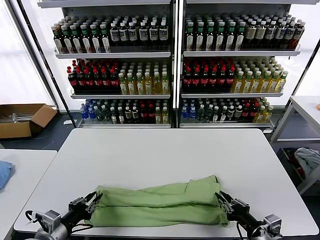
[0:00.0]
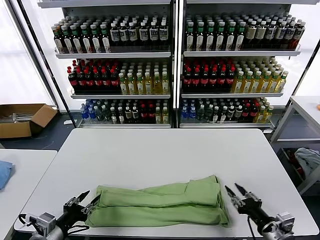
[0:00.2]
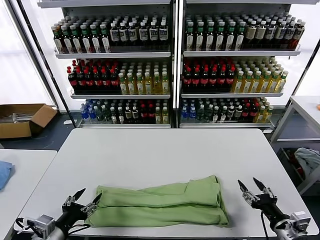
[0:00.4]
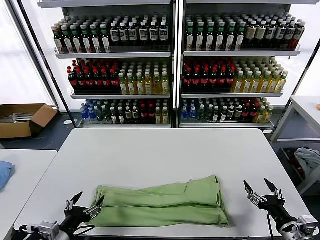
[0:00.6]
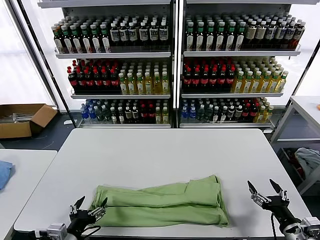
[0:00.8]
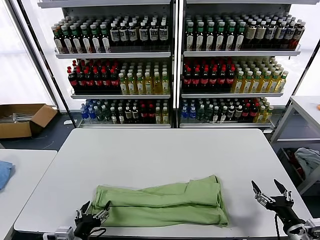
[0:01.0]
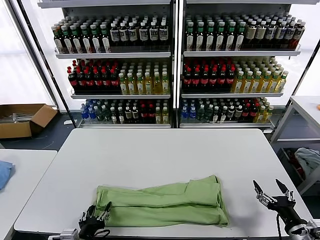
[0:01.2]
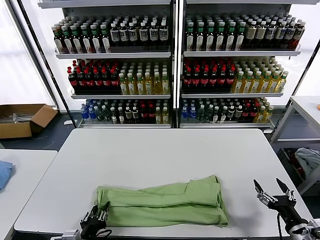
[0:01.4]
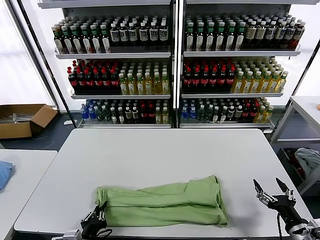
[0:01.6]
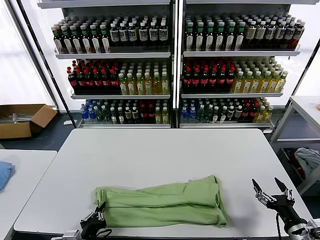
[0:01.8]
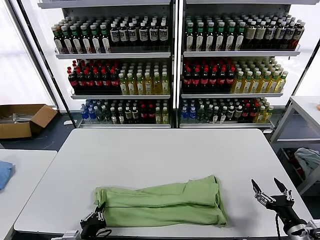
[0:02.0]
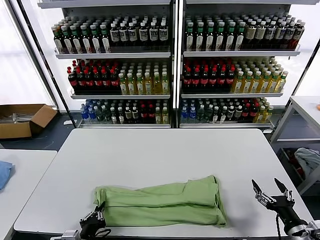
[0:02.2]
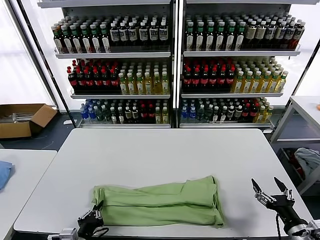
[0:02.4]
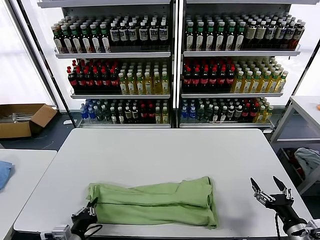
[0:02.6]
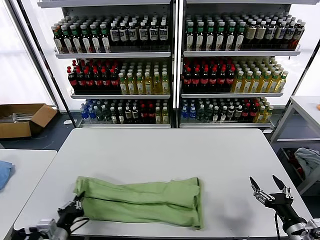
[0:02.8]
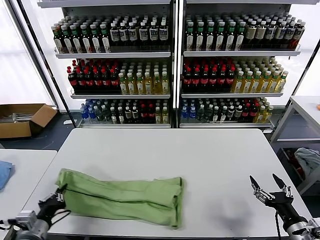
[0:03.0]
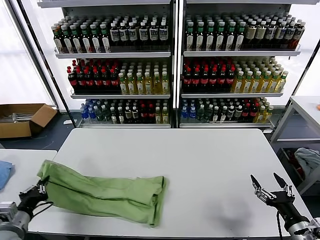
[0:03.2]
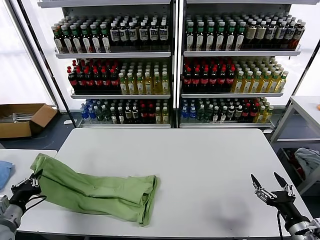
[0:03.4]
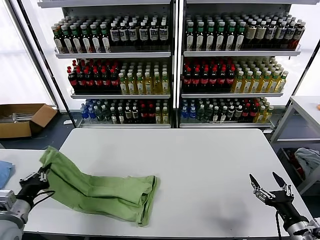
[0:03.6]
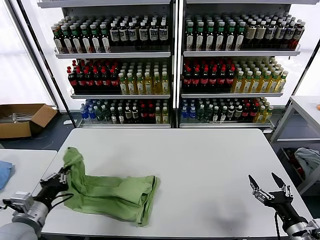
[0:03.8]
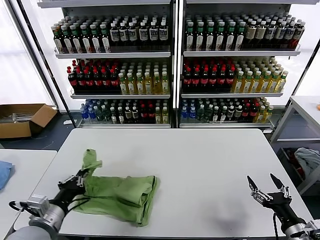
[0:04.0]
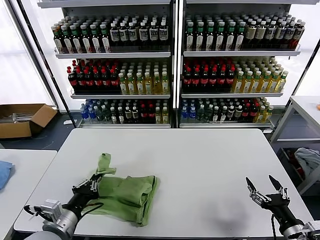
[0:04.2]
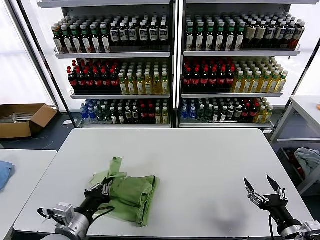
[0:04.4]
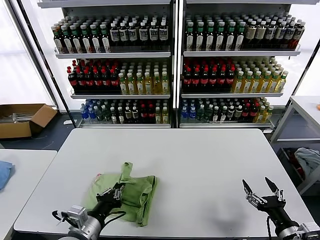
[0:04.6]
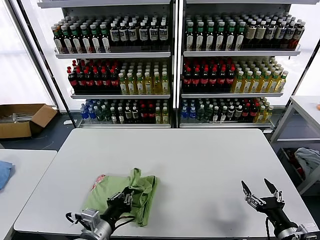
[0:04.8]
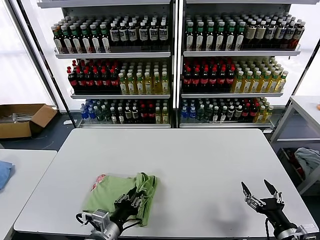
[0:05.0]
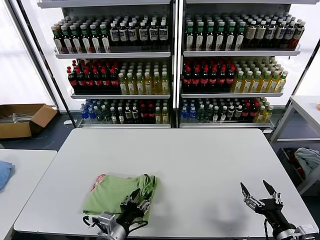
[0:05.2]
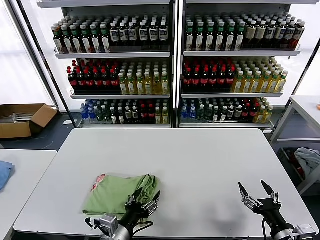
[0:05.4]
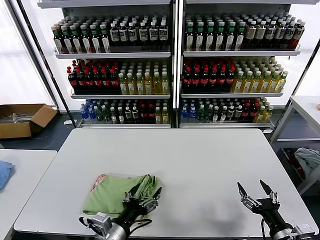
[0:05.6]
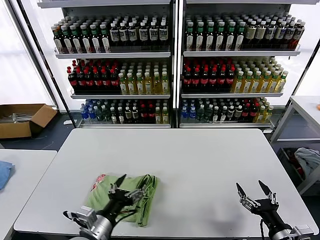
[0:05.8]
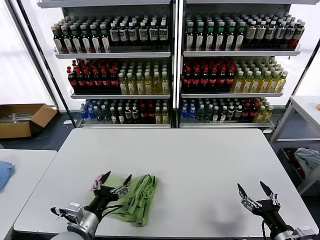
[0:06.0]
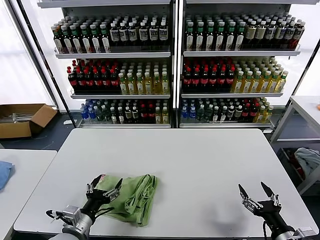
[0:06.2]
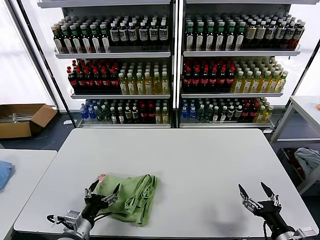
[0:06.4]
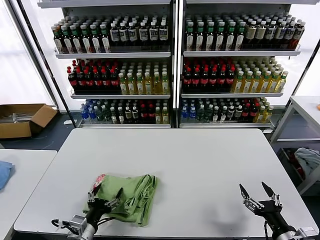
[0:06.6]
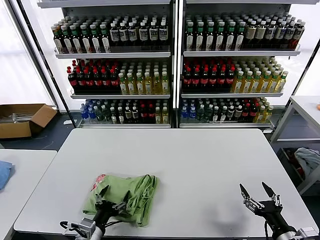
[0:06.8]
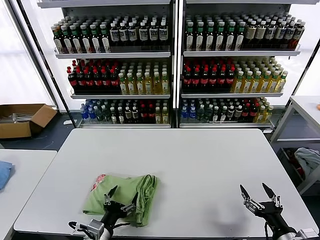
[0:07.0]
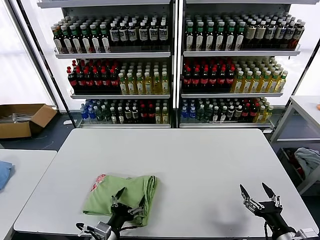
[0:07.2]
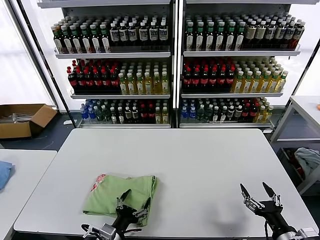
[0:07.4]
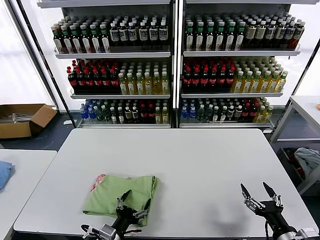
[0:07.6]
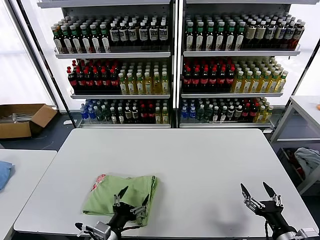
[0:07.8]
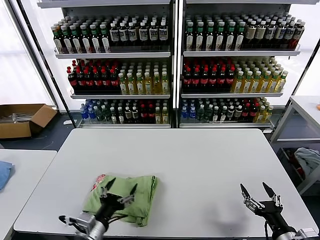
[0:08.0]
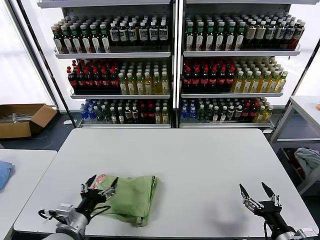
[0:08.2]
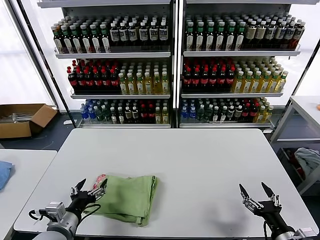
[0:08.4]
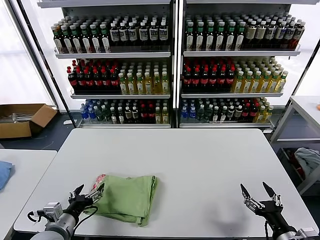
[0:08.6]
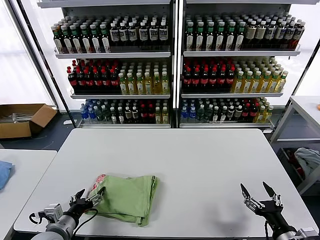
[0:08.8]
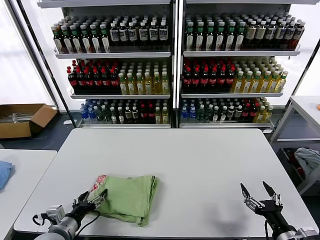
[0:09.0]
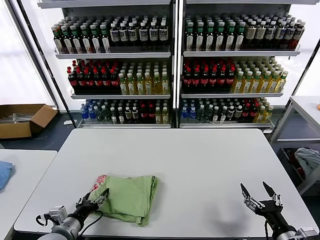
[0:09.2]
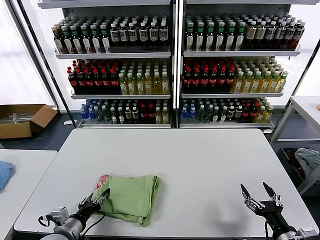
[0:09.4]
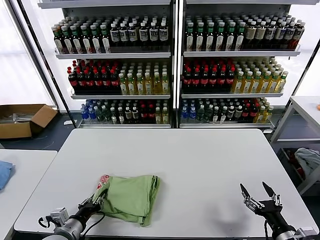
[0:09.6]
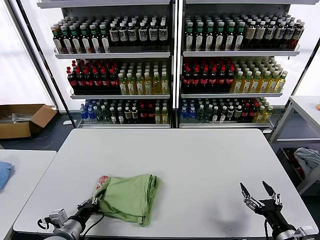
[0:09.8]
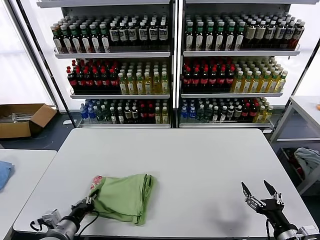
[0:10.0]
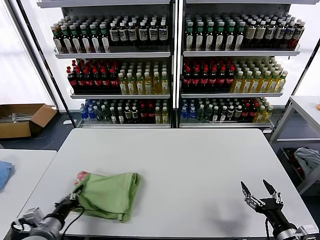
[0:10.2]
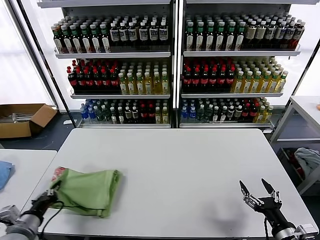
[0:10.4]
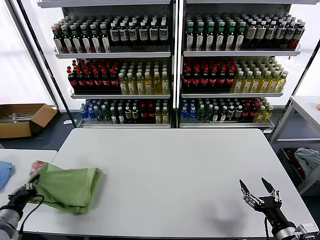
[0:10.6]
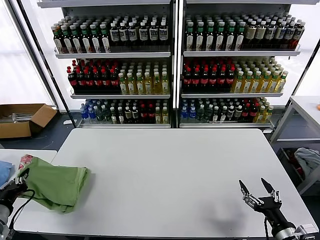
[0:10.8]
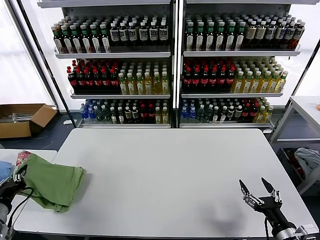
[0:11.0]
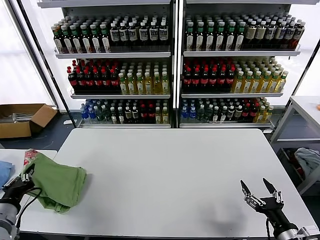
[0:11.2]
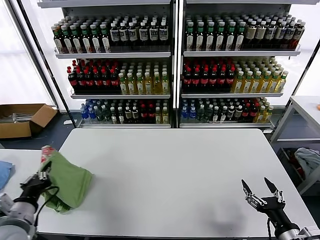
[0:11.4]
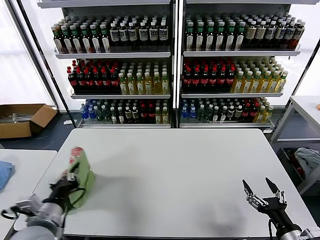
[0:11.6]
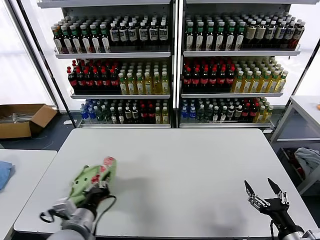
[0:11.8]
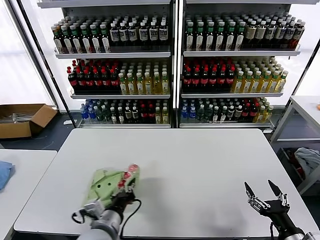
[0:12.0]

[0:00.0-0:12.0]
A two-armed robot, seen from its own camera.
Task of the whole recording: fold and organize the clothes.
Step, 0:00.2 to 0:01.8: use the left gripper to clamp the left edge of the fabric.
Step, 0:02.0 to 0:05.4: use the left gripper to drag the left edge of the fabric to the left and folds it over the right edge.
0:00.0 to 0:01.6: The right gripper travels to the right by roughly 10 cm, and opens its fingers, while the left gripper travels to the right and downward by roughly 10 cm, and opens, then closes once more.
0:01.6 to 0:03.0: The left gripper moves to the left, roughly 10 cm.
0:03.0 to 0:04.4: The left gripper travels to the right and upward by roughly 10 cm.
0:04.4 to 0:06.0: The left gripper opens its fingers.
0:06.0 to 0:07.6: The left gripper heads downward, covering some 10 cm.
0:07.6 to 0:09.0: The left gripper is displaced to the left by approximately 15 cm.
0:09.0 to 0:10.4: The left gripper shifts some 5 cm to the left, and closes up.
0:10.4 to 0:12.0: The left gripper goes some 20 cm to the right.

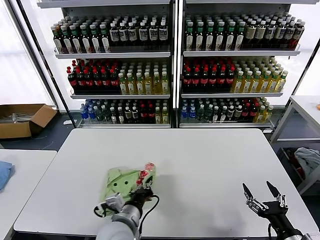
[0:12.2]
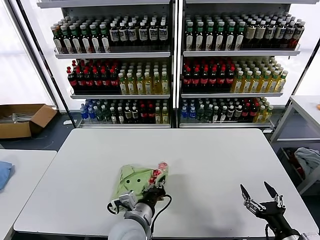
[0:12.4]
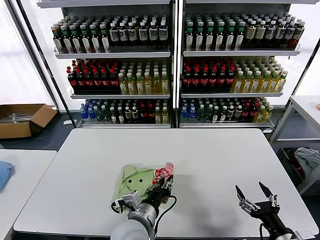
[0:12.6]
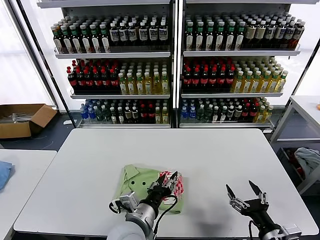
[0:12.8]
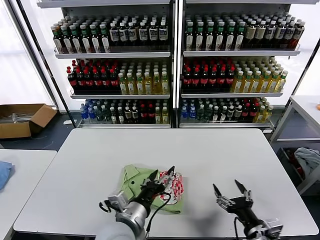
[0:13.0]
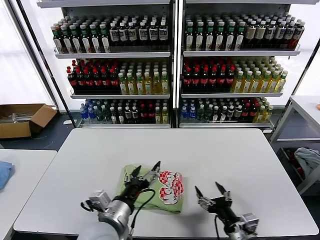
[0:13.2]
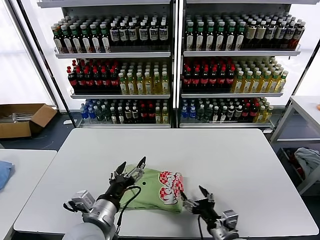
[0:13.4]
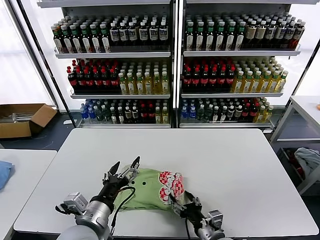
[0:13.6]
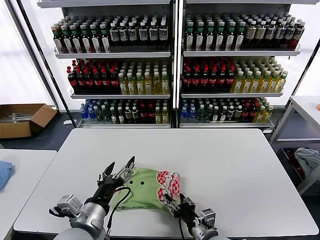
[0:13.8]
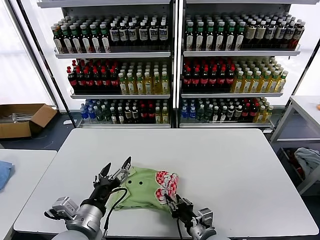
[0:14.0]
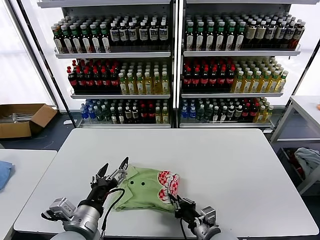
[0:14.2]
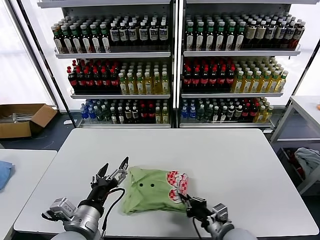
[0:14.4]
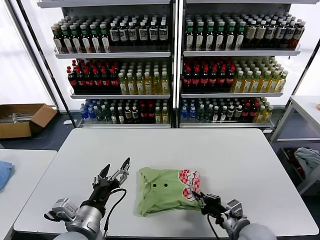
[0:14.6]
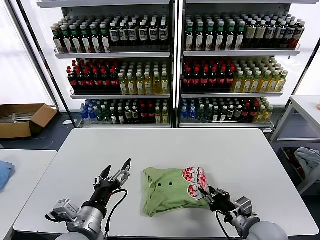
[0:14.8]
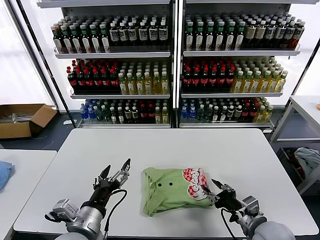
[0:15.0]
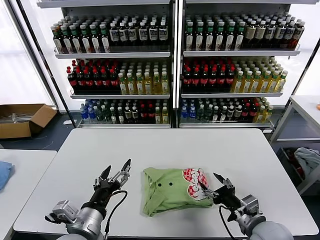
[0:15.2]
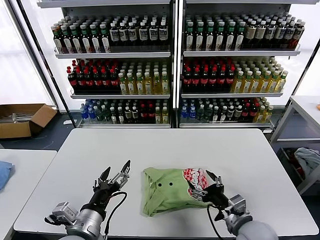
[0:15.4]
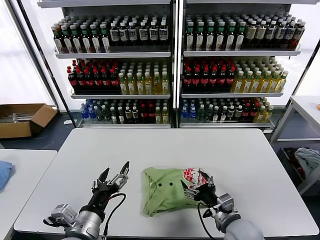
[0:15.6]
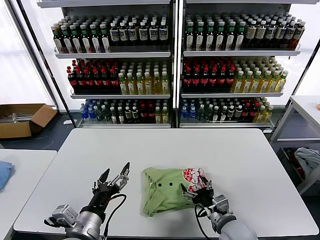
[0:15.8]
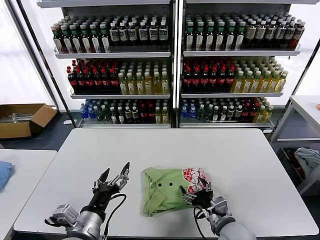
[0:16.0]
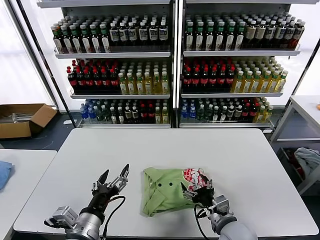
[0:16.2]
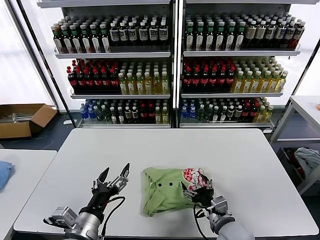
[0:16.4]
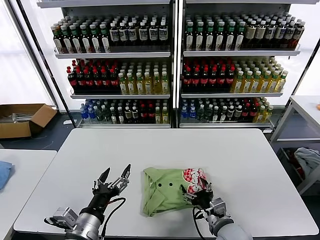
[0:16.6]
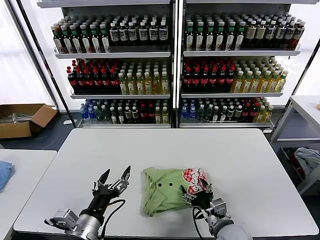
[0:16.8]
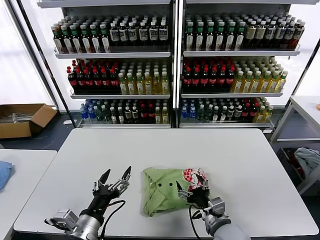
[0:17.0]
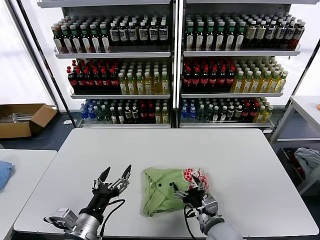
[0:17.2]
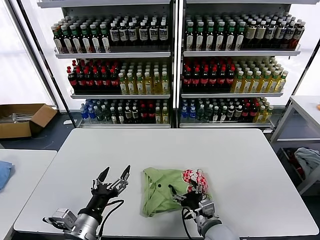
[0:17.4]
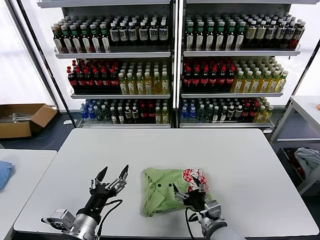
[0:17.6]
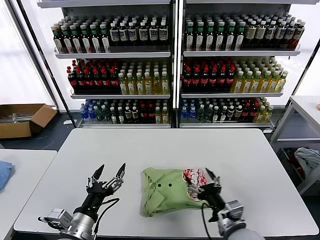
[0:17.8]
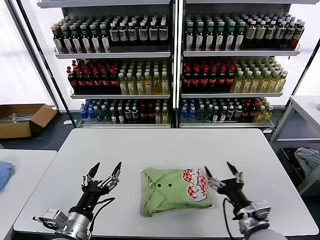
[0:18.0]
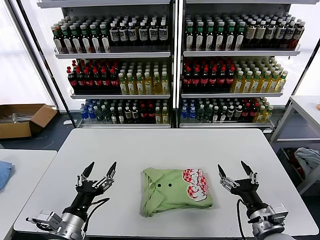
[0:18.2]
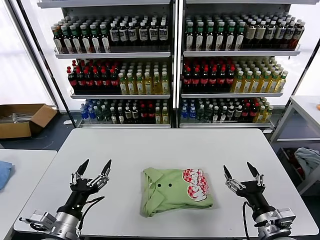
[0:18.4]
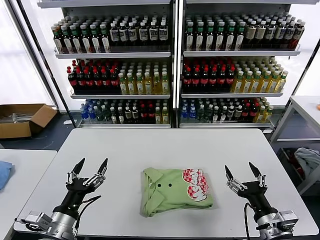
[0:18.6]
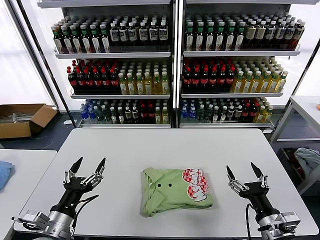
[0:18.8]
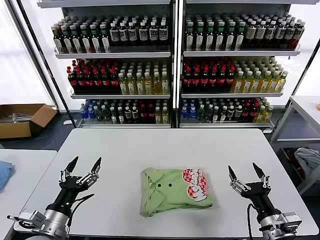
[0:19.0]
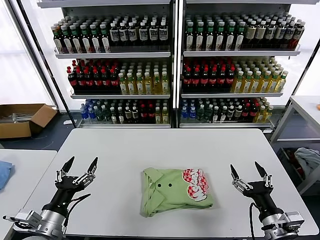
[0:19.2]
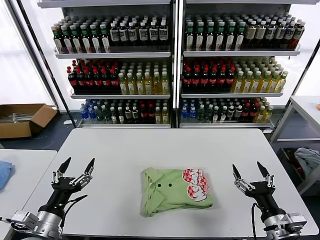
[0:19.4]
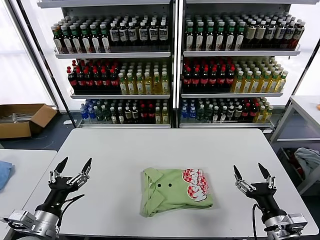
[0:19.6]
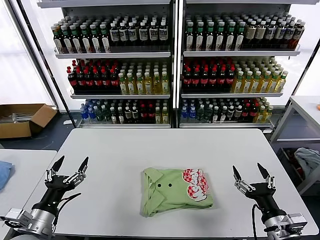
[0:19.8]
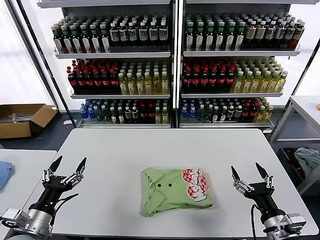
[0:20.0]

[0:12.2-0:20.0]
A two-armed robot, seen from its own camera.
Task of the whole recording: fold and organize the clothes.
Step, 0:13.0 to 0:17.6: Drag the clothes to the center of the table.
0:12.2 to 0:13.8: The right gripper heads to the left and forward, covering about 20 cm. Meanwhile the left gripper is displaced upward and to the left by some 10 cm, and opens.
0:13.8 to 0:15.4: The right gripper heads to the right and upward, covering some 10 cm, and closes, then reopens.
0:15.4 to 0:16.8: The right gripper goes about 5 cm to the left.
0:16.8 to 0:18.4: The left gripper shifts roughly 5 cm to the left, while the right gripper moves to the right, upward and backward, roughly 15 cm.
0:18.4 to 0:20.0: The left gripper is displaced to the left by roughly 10 cm.
